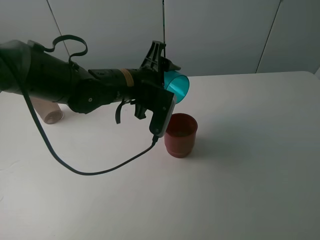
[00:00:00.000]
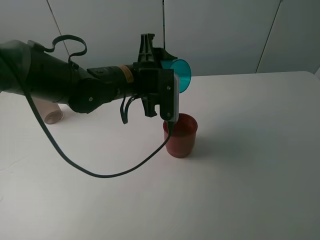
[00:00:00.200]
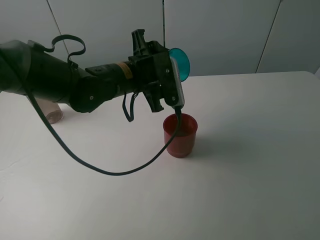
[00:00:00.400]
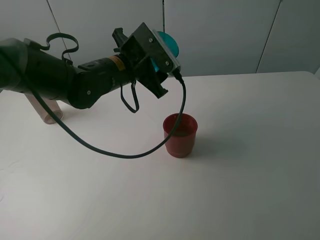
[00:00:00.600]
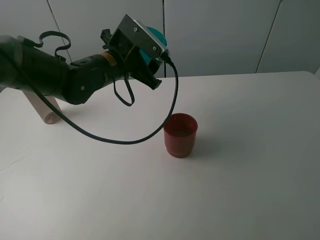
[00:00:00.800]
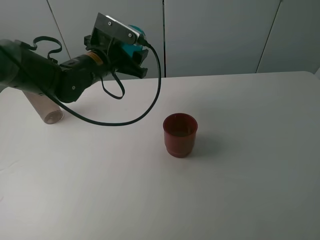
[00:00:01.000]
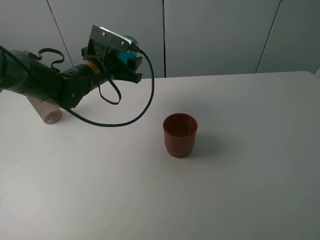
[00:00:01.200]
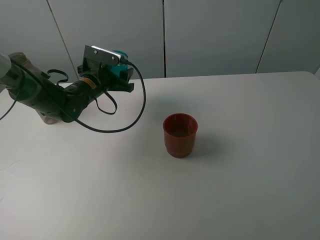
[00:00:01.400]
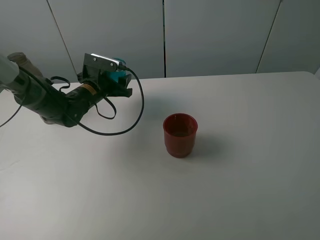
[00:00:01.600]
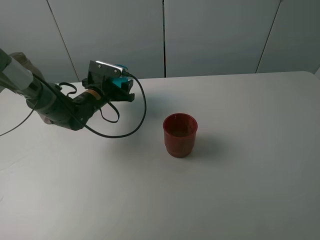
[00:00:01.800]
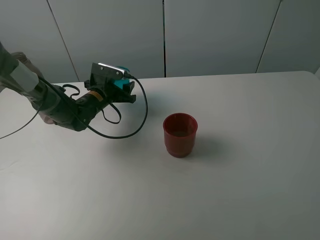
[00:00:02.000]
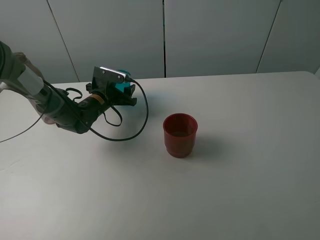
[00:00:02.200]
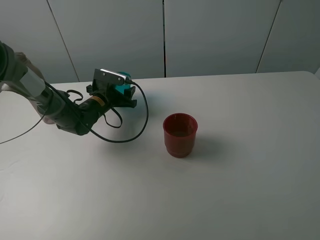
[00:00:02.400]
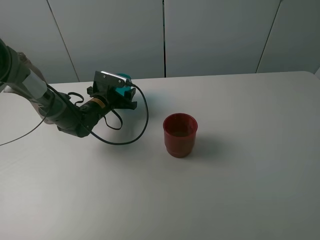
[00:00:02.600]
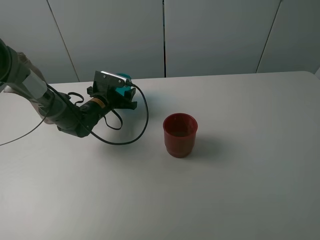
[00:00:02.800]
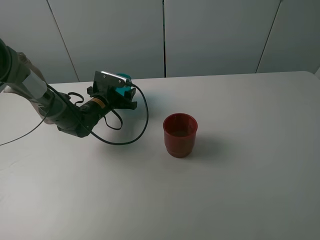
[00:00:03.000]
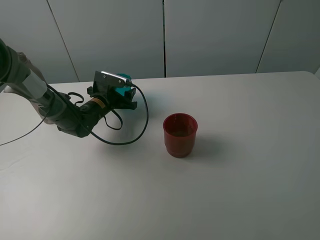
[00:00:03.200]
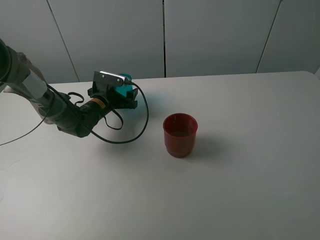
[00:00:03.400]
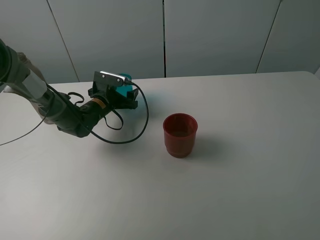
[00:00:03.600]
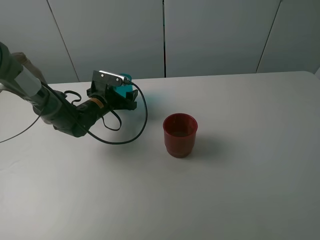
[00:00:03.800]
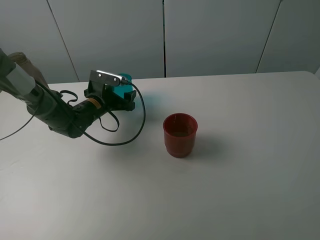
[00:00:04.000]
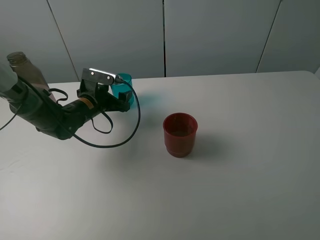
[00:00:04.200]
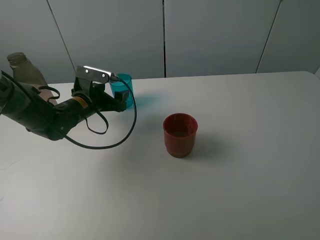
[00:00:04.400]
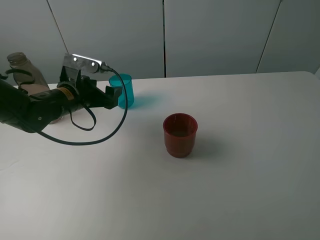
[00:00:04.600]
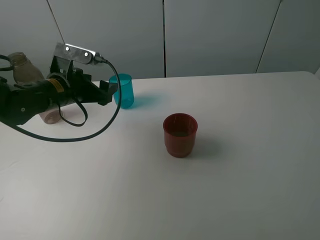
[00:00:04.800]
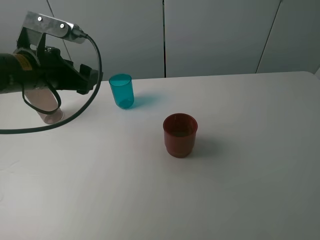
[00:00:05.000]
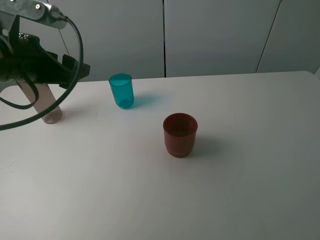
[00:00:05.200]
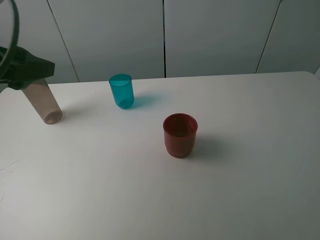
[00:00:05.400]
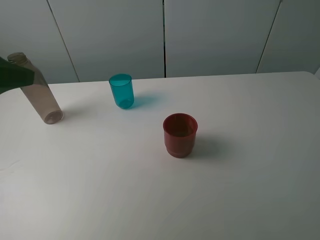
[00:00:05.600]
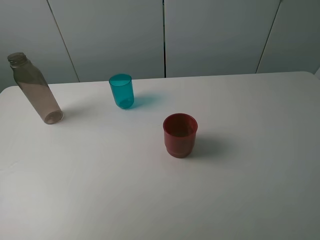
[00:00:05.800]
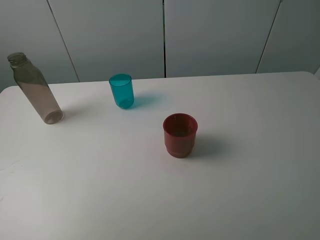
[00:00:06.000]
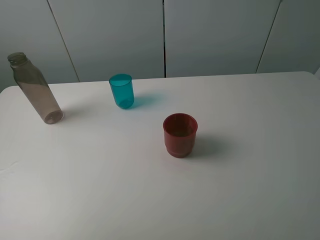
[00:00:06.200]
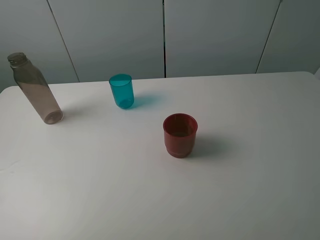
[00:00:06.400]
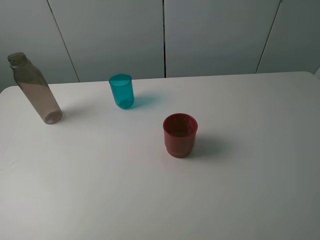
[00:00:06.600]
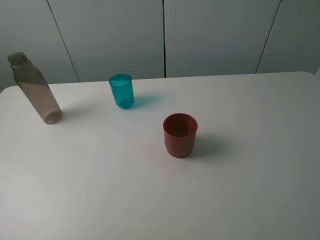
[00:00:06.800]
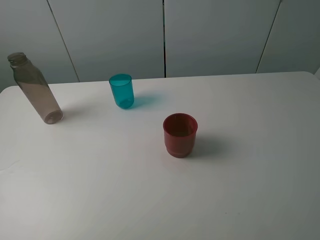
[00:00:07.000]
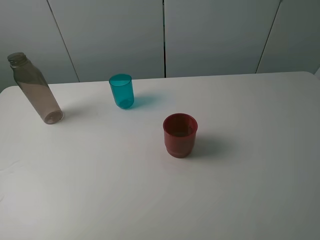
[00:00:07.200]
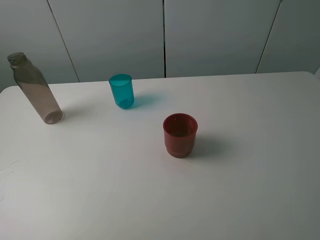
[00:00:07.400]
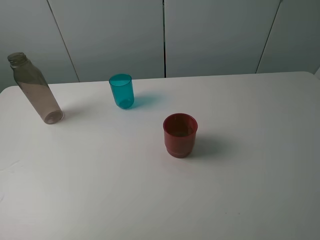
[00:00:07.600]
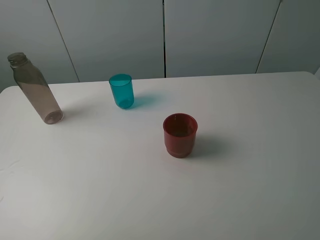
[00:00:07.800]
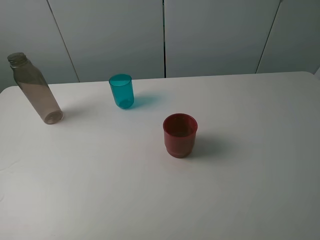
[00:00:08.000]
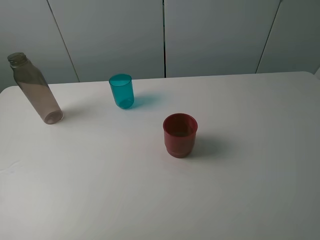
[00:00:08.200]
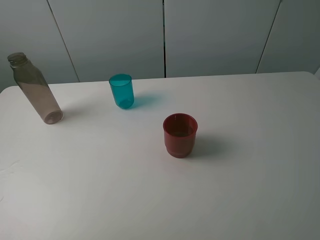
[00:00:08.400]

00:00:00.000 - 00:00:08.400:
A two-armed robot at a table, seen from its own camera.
Task of the whole recording: pick up the bottle and pour water into the cup, then pick up the cup containing water and pour it into another cup.
Step, 00:00:00.000 - 00:00:04.000: Place the blue cup with the left gripper.
00:00:00.000 - 00:00:01.400: The left gripper heads to the left, forward and downward, covering about 15 cm.
00:00:01.400 - 00:00:02.800: The left gripper shifts roughly 5 cm downward.
00:00:02.800 - 00:00:04.200: The left gripper changes place by about 5 cm, and opens.
00:00:04.200 - 00:00:05.600: The left gripper goes approximately 35 cm upward and backward.
00:00:05.600 - 00:00:07.000: The left gripper is displaced backward by about 15 cm.
